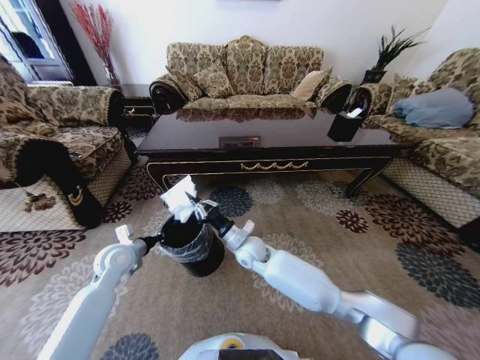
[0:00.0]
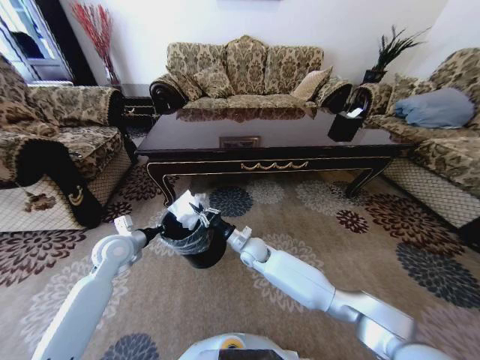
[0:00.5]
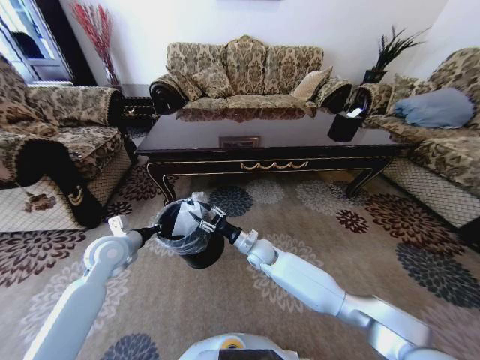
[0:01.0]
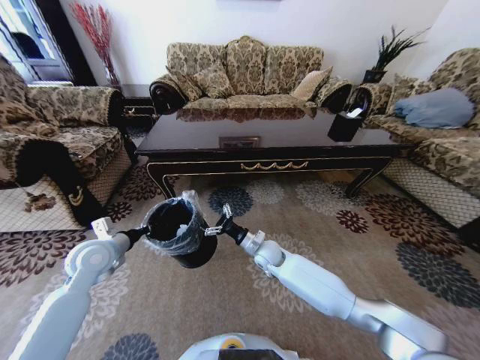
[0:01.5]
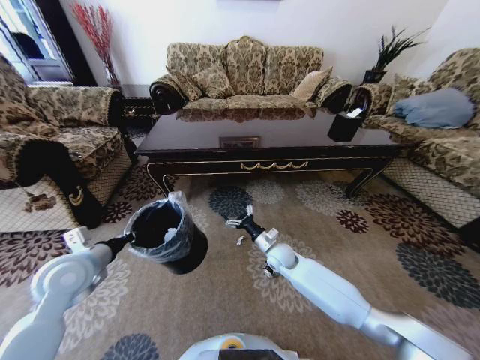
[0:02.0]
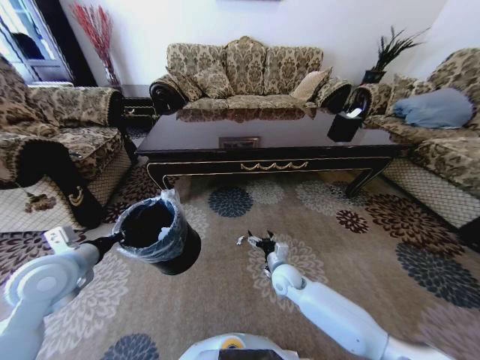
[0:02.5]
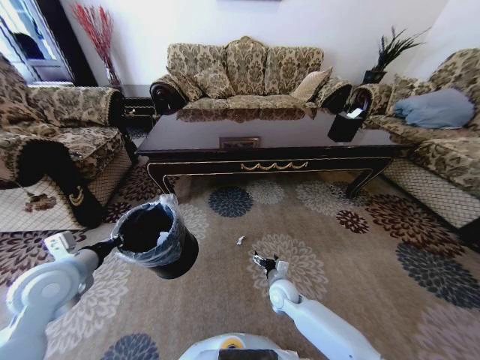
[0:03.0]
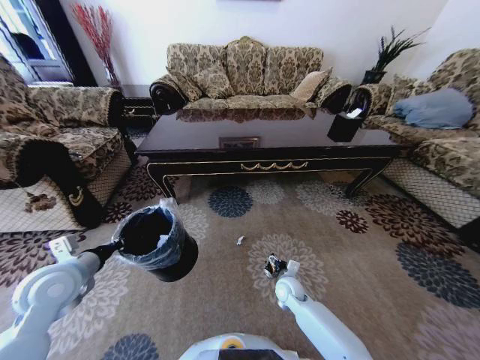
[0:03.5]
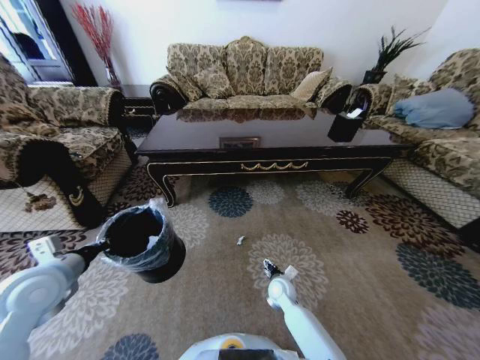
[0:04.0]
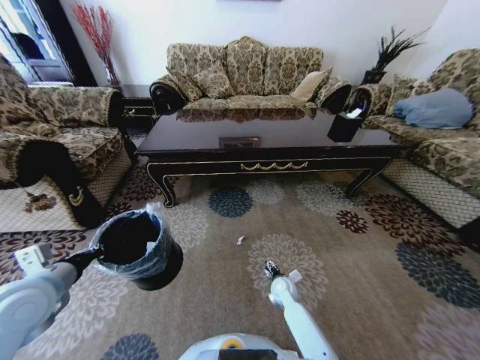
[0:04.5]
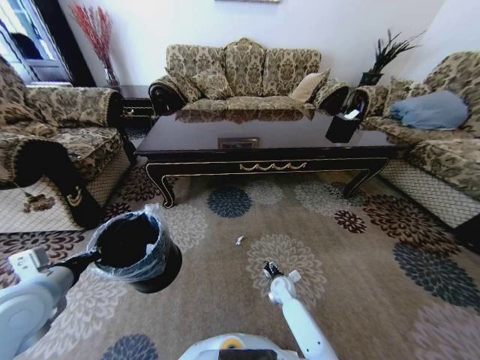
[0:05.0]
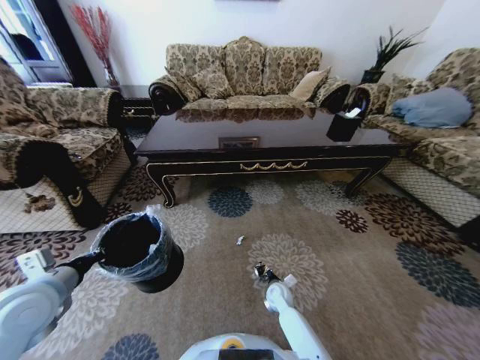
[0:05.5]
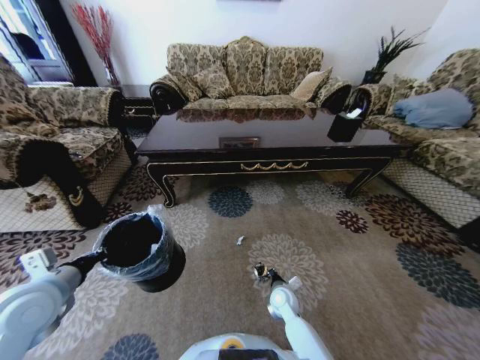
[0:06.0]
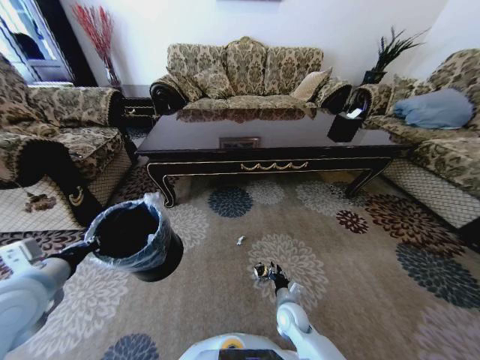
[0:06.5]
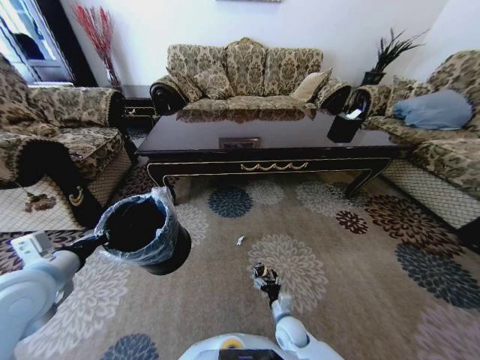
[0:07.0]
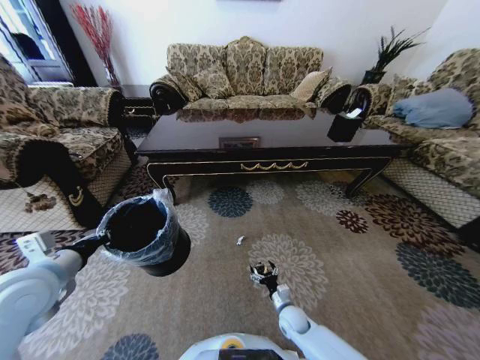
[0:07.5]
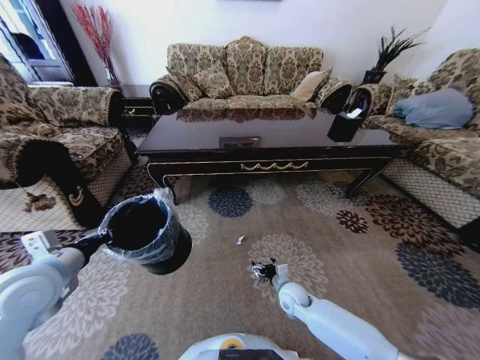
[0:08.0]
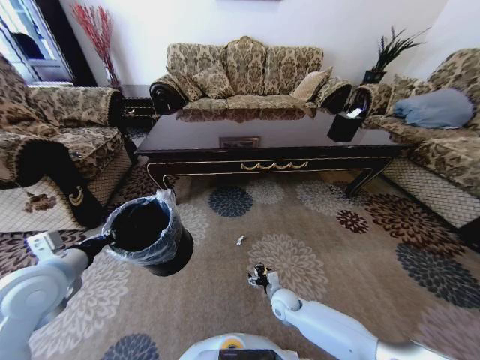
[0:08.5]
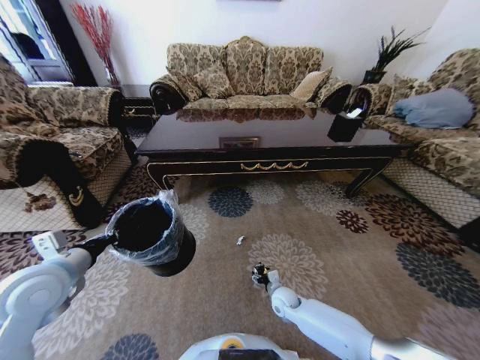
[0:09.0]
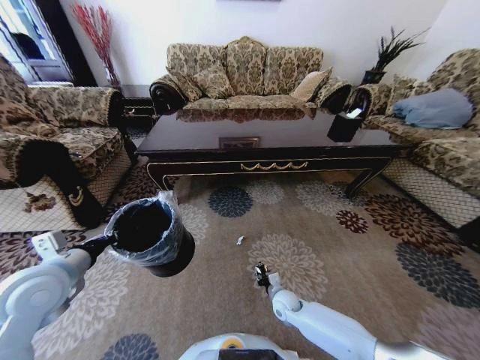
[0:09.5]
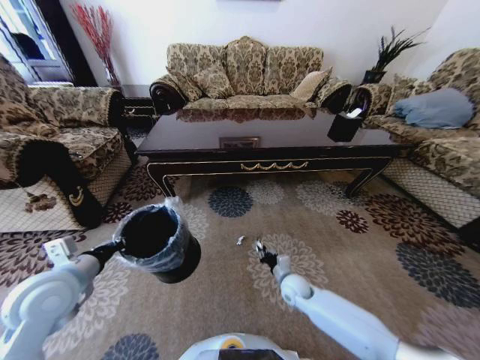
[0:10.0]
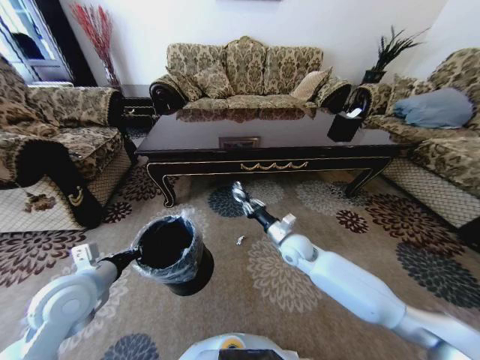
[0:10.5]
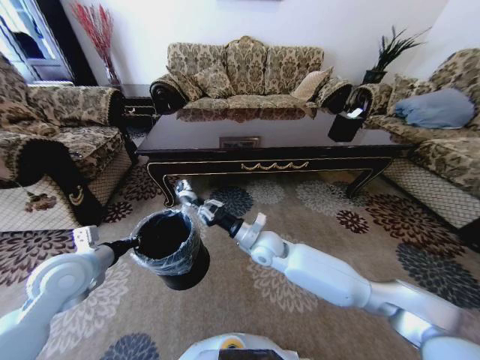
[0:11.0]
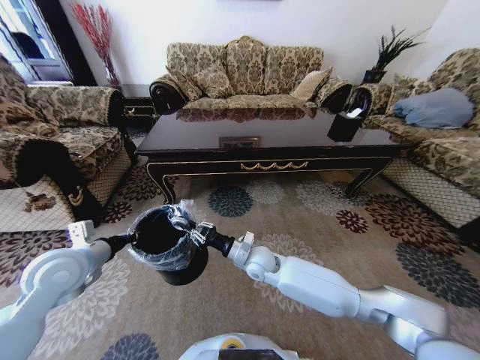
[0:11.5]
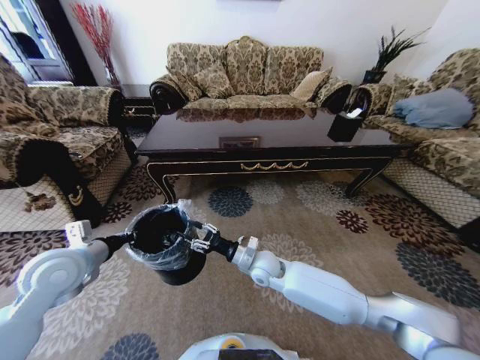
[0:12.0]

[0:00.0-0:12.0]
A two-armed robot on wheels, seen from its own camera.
Task of the whole recording: Move to the front of the table and pick up the trash from the floor, then place it into the trash bin.
0:00.0 to 0:02.0: The left gripper moves upward and backward, about 10 cm. The right gripper shifts some 15 cm to the right and downward, and opens.
0:02.0 to 0:04.0: The right gripper goes some 15 cm downward and backward; the left gripper moves about 5 cm.
0:04.0 to 0:06.0: The right gripper closes.
0:06.0 to 0:08.0: The right gripper reaches about 10 cm backward, then returns, and opens its fingers.
0:08.0 to 0:10.0: The right gripper closes.
0:10.0 to 0:12.0: The right gripper goes about 15 cm to the left and upward, and opens up.

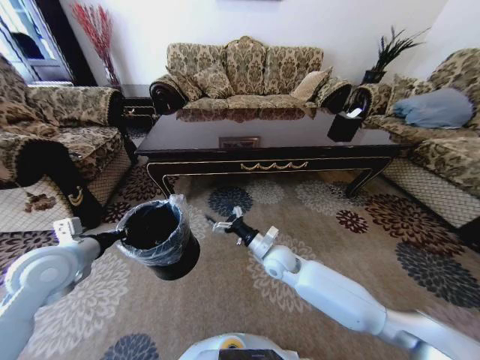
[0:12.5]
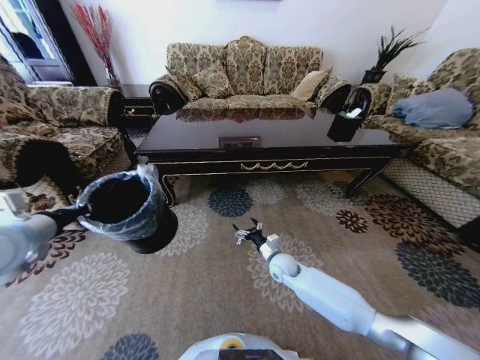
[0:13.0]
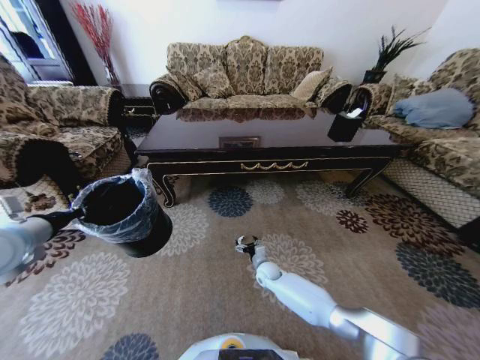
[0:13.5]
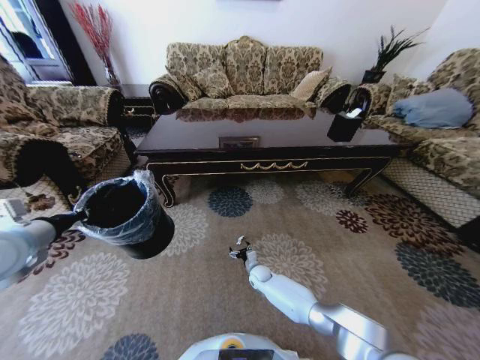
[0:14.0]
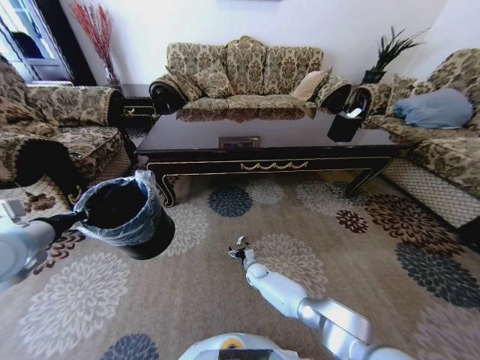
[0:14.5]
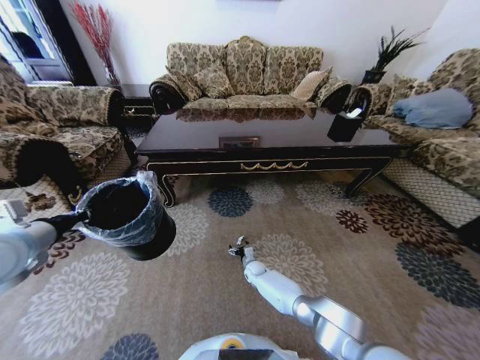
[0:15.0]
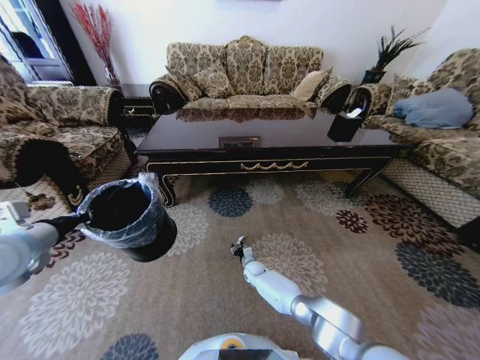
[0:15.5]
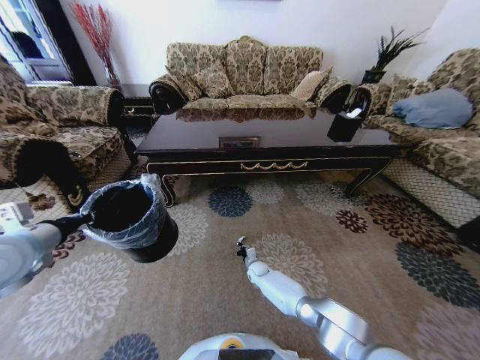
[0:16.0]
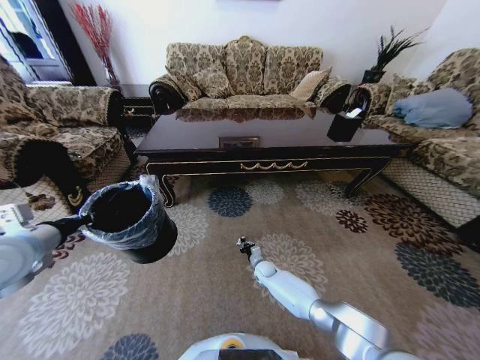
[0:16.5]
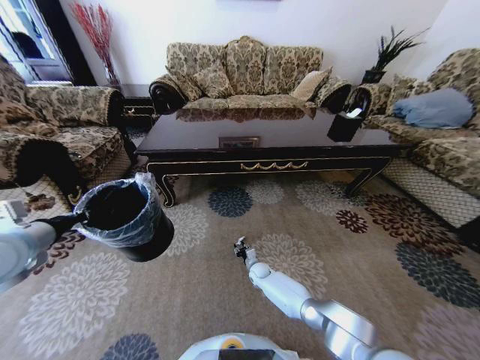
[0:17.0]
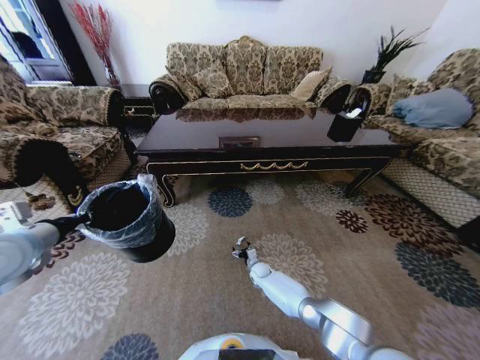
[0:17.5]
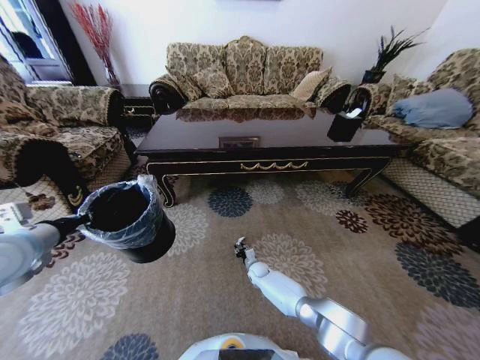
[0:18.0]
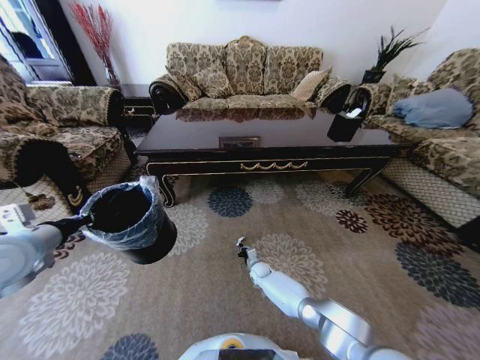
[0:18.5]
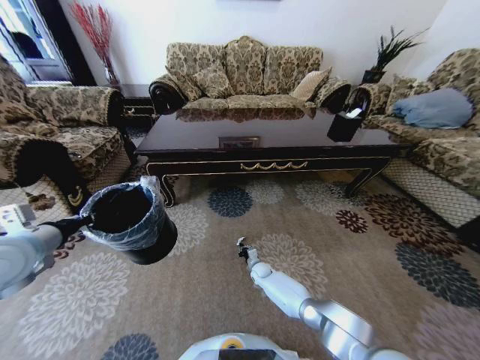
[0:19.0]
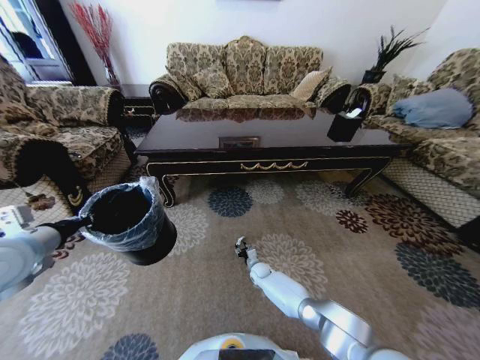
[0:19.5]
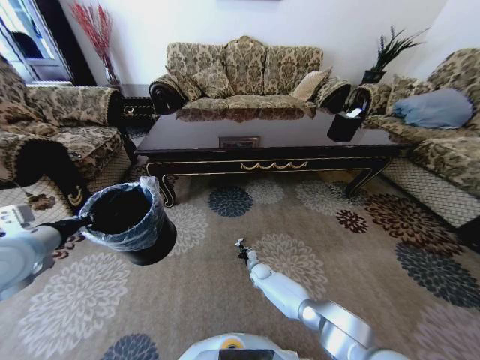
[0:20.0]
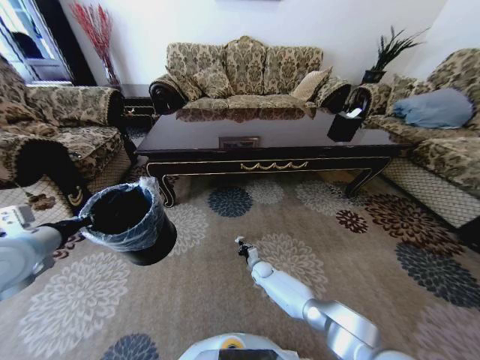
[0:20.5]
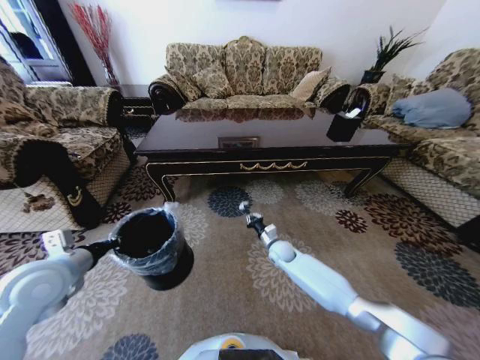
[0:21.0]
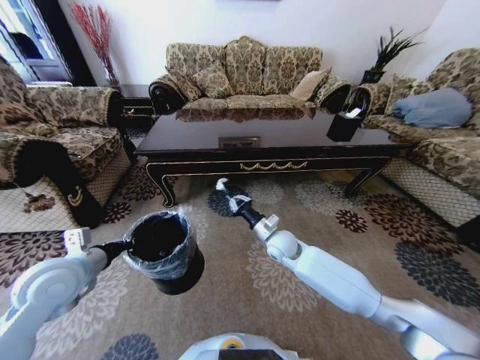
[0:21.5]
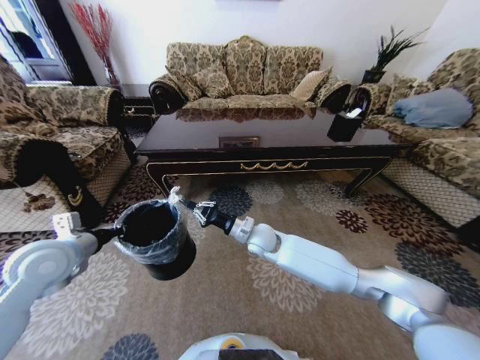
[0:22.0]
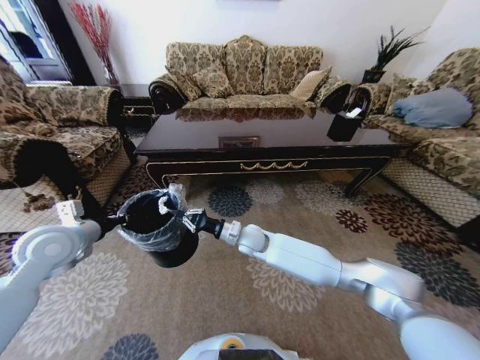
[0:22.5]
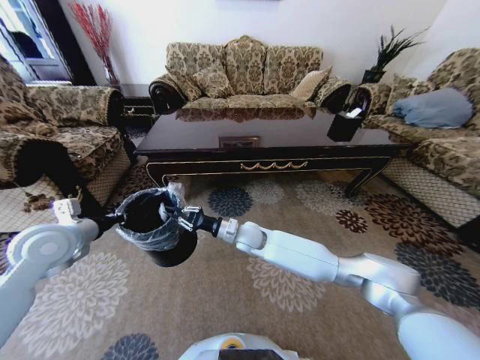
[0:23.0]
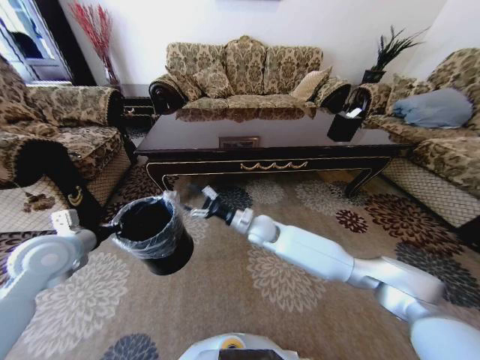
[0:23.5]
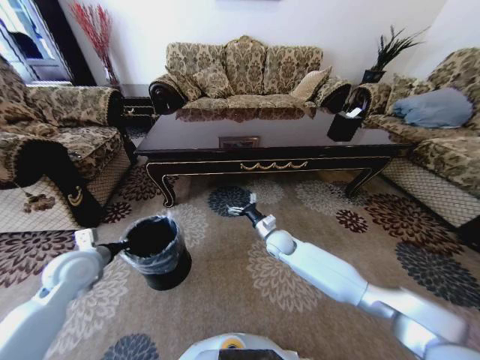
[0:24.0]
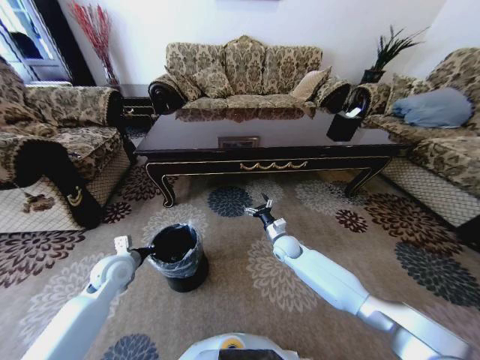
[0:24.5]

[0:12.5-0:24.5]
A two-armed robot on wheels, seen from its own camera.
Task of the whole recording: Move to the front of the table and pick up the trash from the floor, then place it into the trash bin.
0:12.5 to 0:14.5: The right gripper moves downward, roughly 25 cm. The left gripper travels upward and to the left by some 10 cm.
0:14.5 to 0:16.5: The right gripper closes.
0:16.5 to 0:18.5: The right gripper opens, then closes again.
0:18.5 to 0:20.5: The right gripper opens, then closes once more.
0:20.5 to 0:22.5: The right gripper goes some 25 cm upward; the left gripper shifts roughly 5 cm forward.
0:22.5 to 0:24.5: The left gripper moves downward, roughly 15 cm; the right gripper goes about 20 cm to the right and downward, and opens.

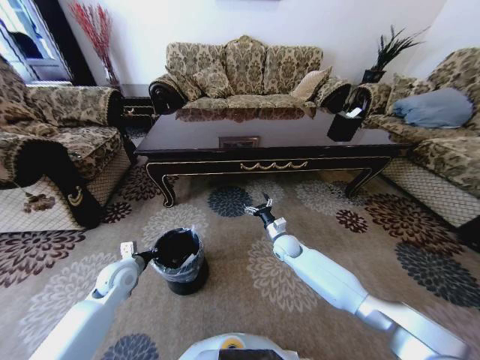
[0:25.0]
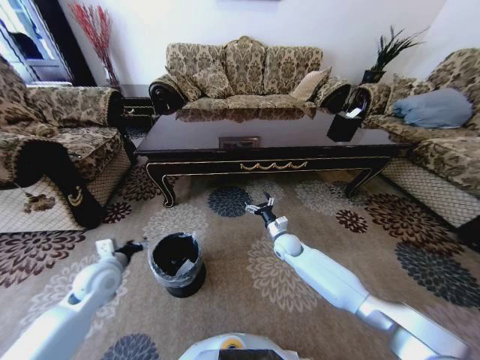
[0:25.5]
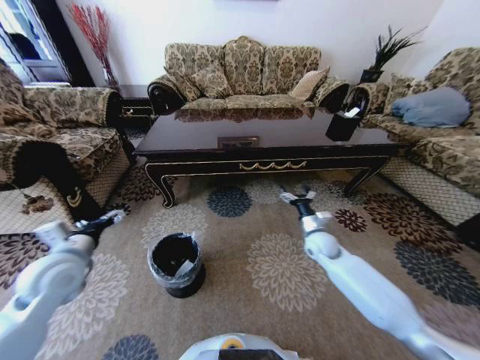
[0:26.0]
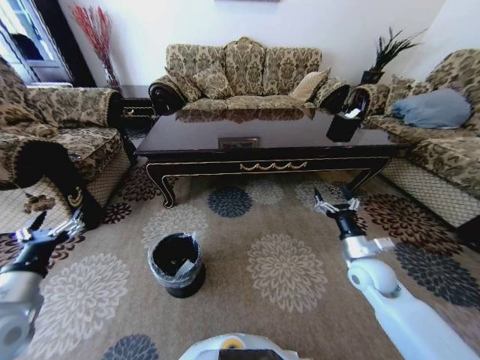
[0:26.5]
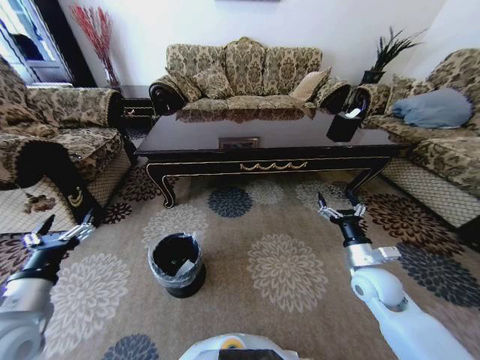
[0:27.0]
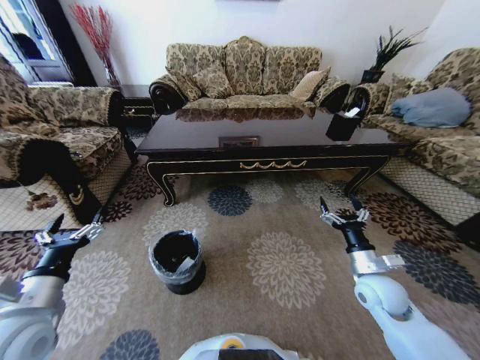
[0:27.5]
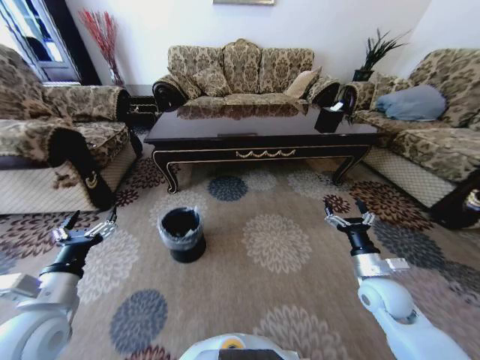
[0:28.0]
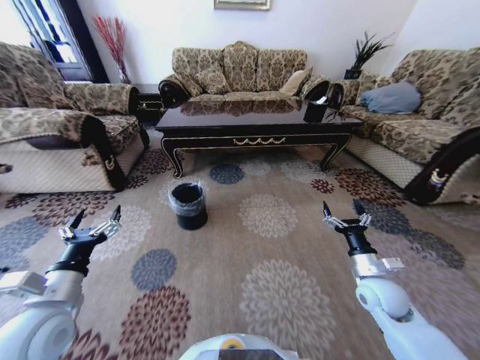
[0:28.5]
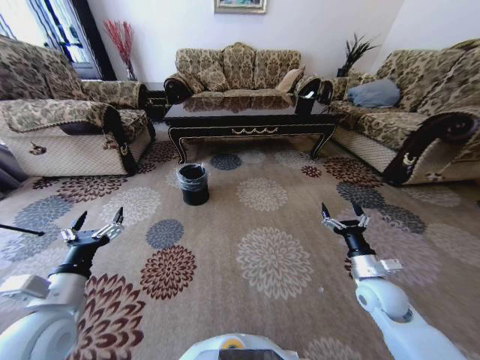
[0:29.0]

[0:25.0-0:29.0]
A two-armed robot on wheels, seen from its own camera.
Task of the whole recording: Move to the front of the table and pick up the trash from the floor, then place it into the trash bin.
0:25.0 to 0:27.0: The left gripper travels backward and upward by roughly 20 cm, and opens up. Meanwhile the right gripper is displaced backward, to the right and upward by roughly 25 cm.
